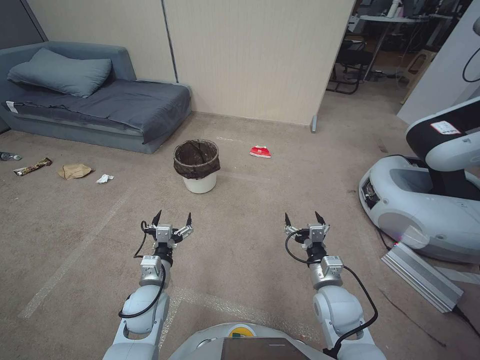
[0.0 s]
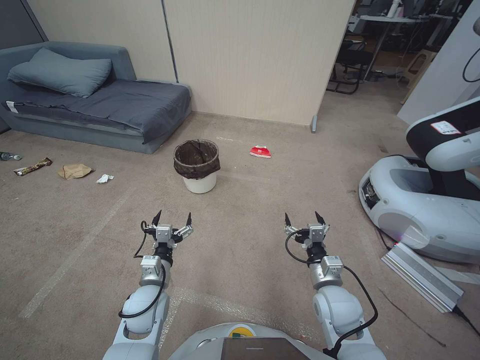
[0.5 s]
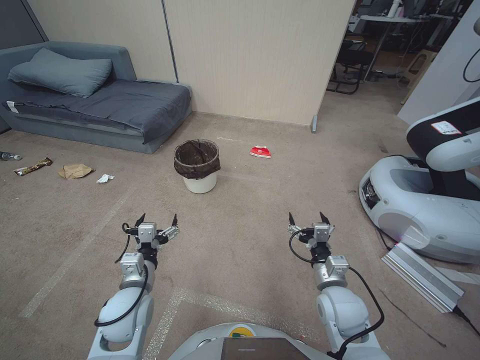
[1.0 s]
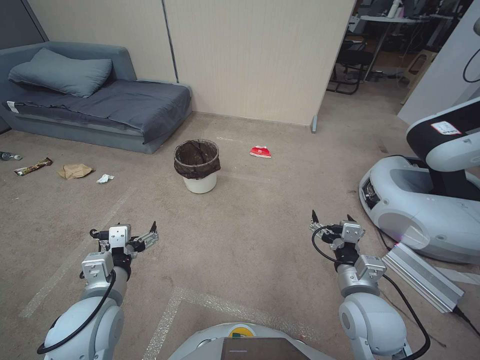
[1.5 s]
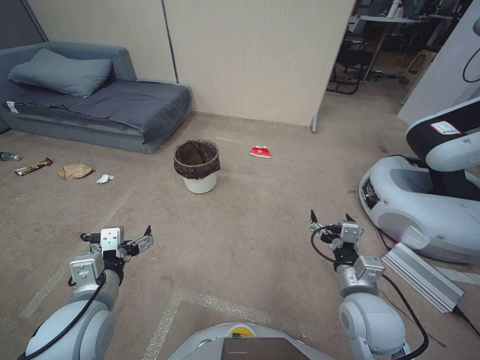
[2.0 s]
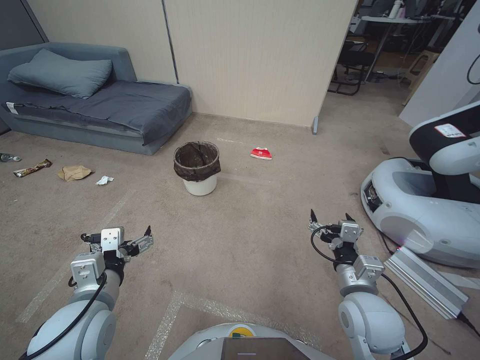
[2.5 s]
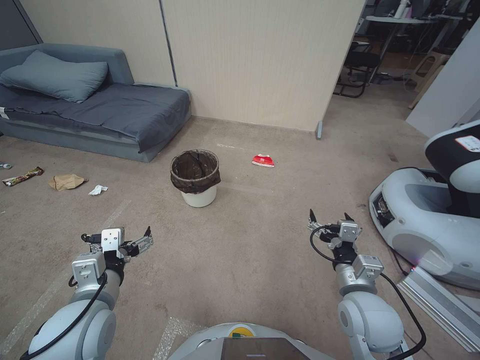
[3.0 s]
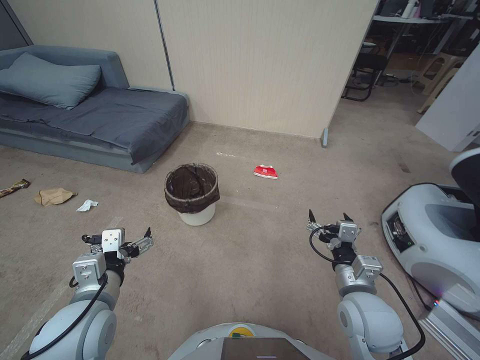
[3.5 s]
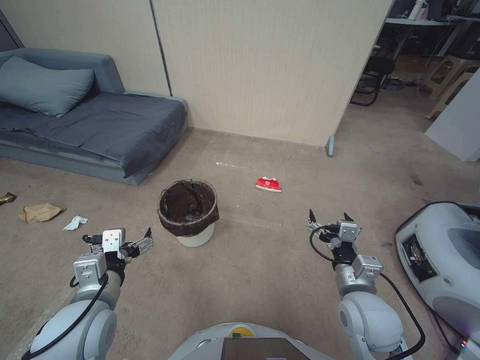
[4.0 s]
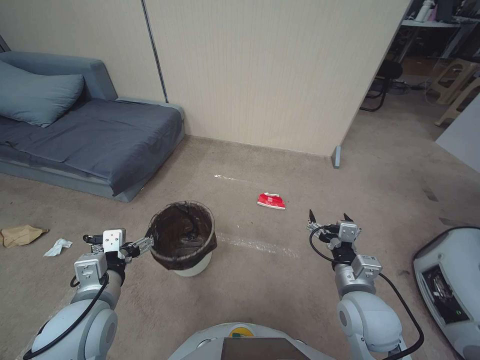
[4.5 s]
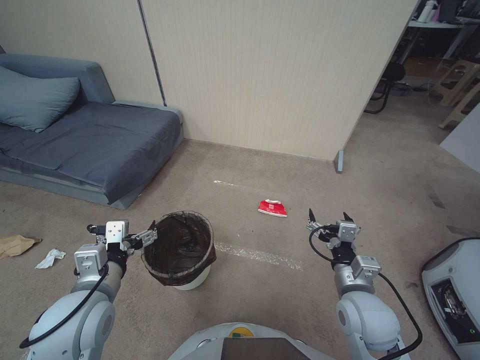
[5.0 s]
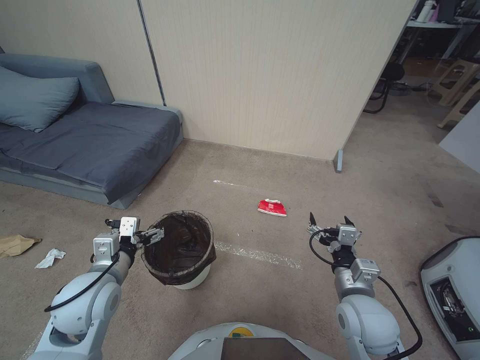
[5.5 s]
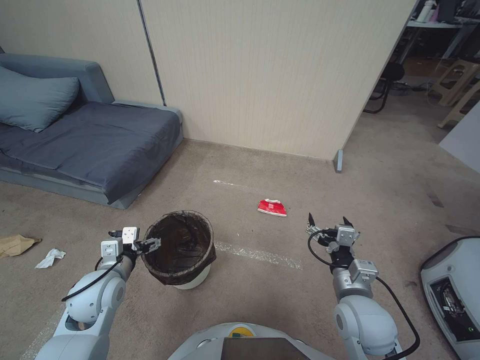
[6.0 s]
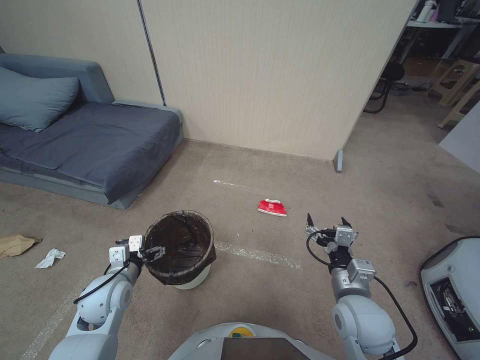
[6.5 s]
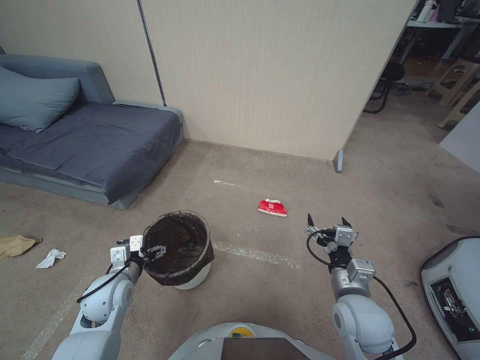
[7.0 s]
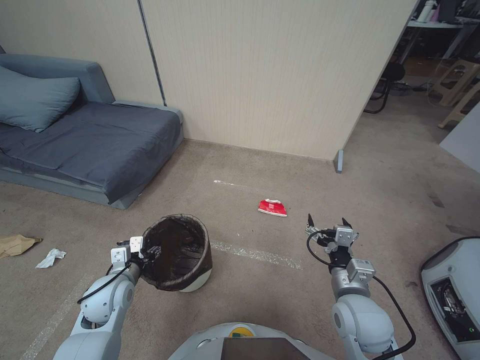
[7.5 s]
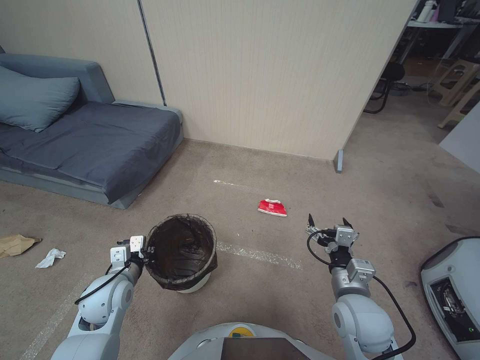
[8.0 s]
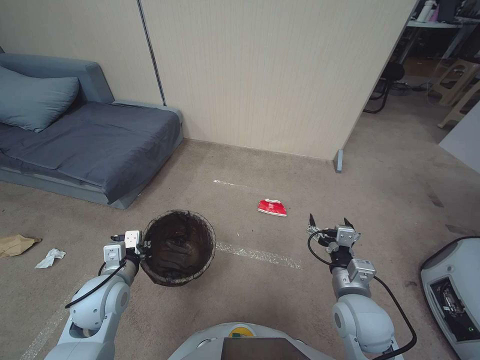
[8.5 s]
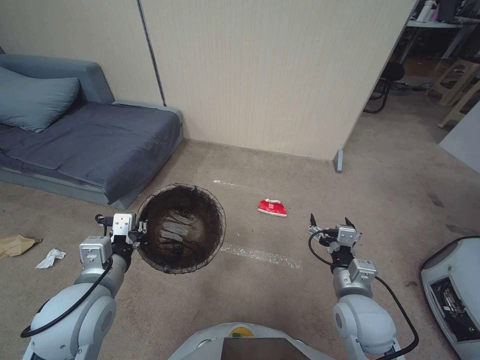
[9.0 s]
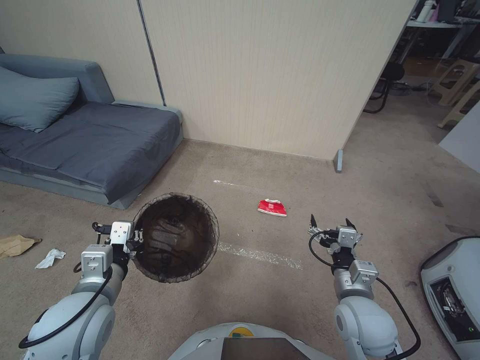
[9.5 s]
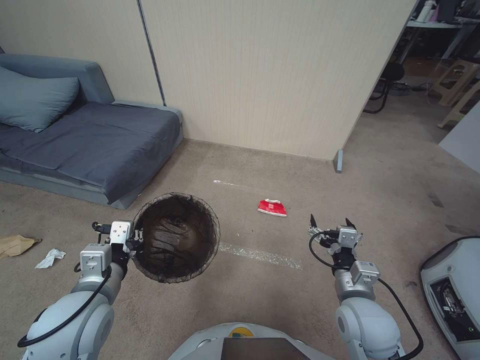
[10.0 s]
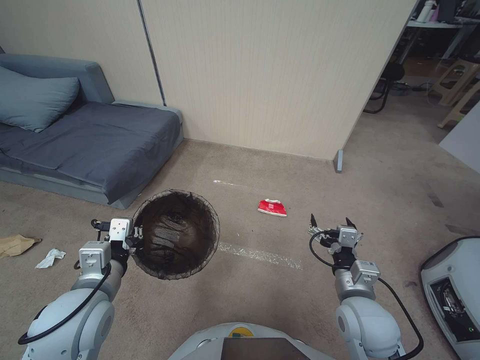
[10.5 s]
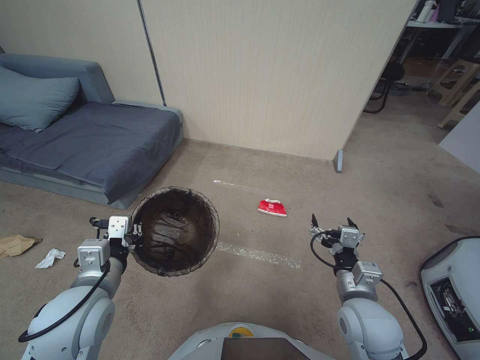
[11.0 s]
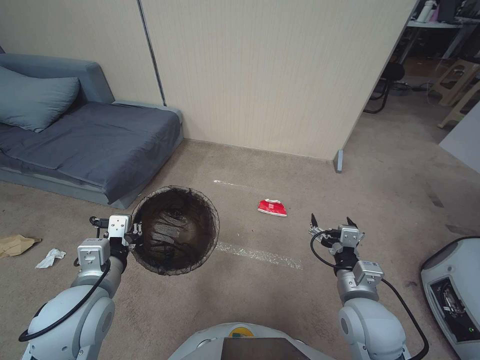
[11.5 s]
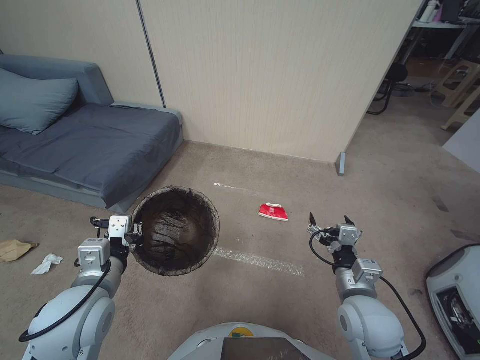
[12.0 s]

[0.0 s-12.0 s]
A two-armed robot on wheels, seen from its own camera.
Task of the whole recording: Pick up the trash bin, then pick up the garbage from the floor and place it into the trash bin.
4.0 to 6.0 s: The left gripper shifts some 10 cm forward and downward.
6.0 to 8.0 s: The left gripper closes its fingers.
8.0 to 10.0 s: The left gripper goes about 15 cm upward and backward.
10.0 to 12.0 s: The two grippers keep their place.

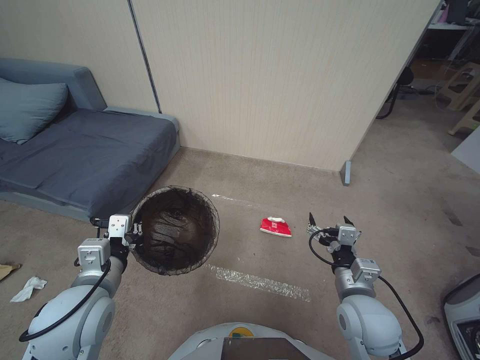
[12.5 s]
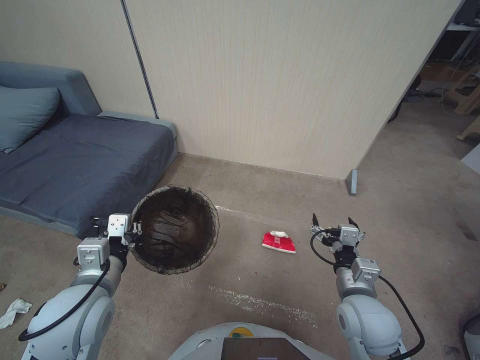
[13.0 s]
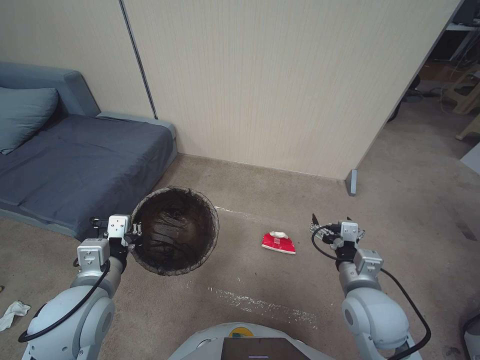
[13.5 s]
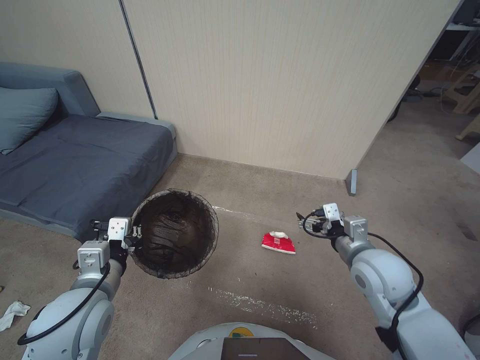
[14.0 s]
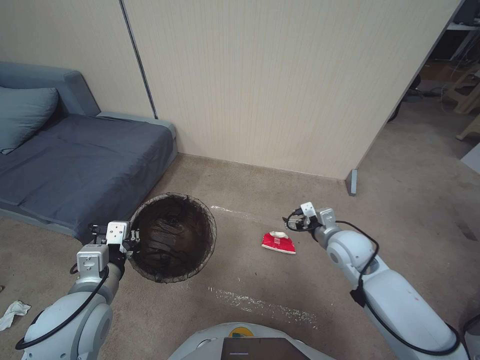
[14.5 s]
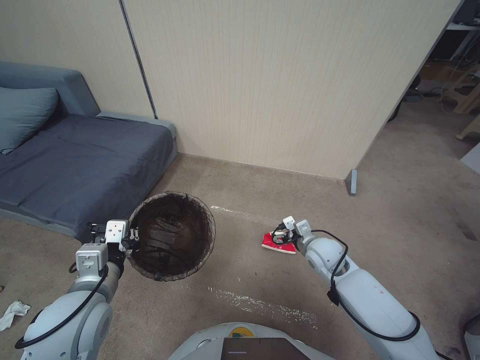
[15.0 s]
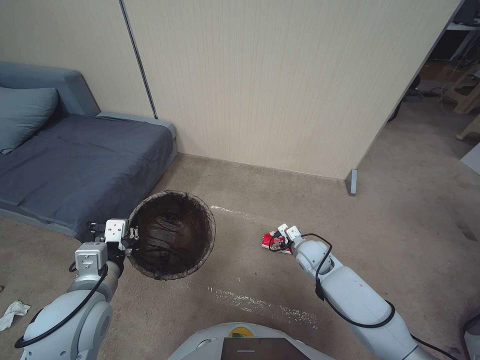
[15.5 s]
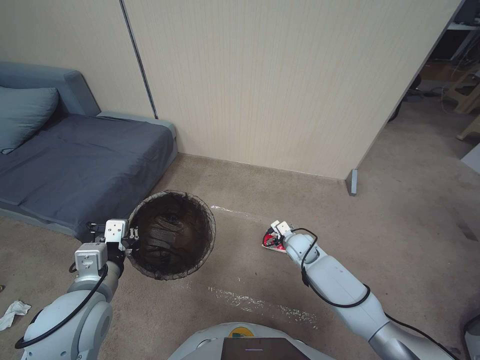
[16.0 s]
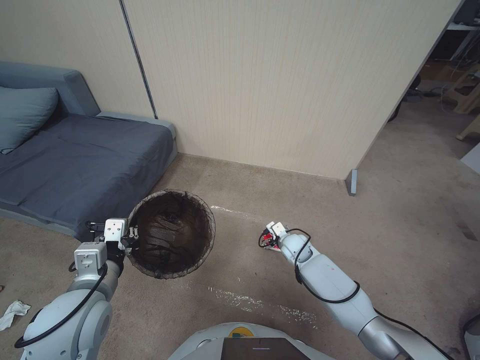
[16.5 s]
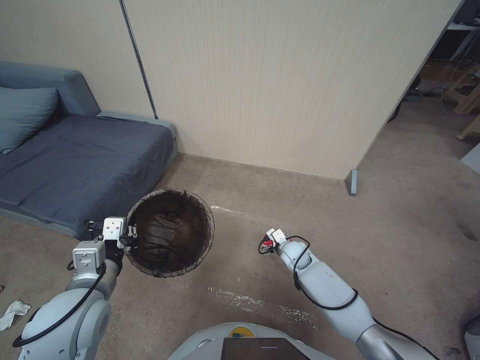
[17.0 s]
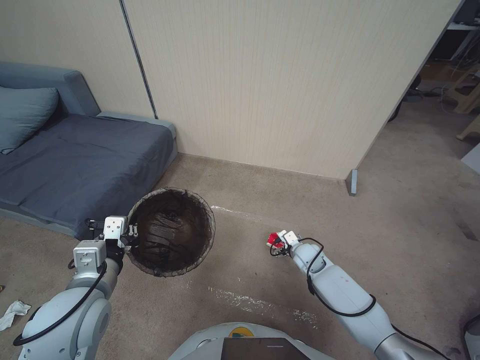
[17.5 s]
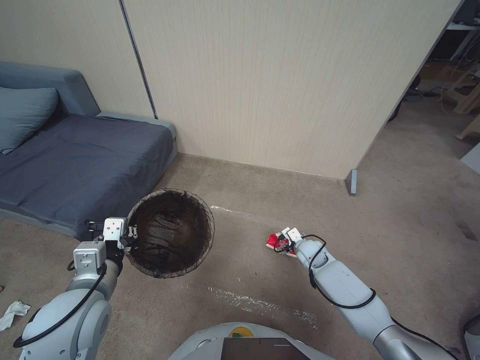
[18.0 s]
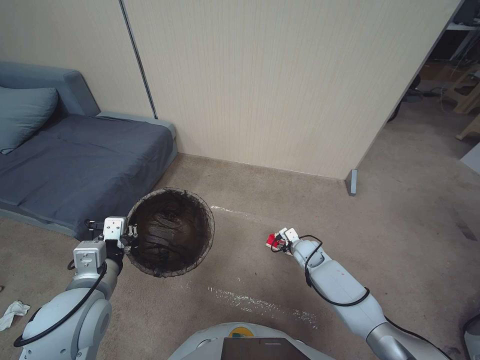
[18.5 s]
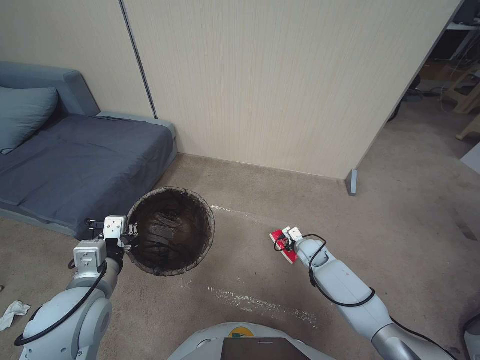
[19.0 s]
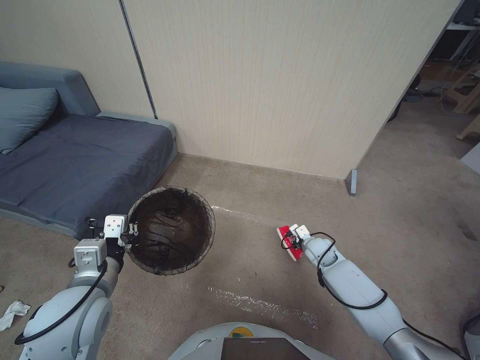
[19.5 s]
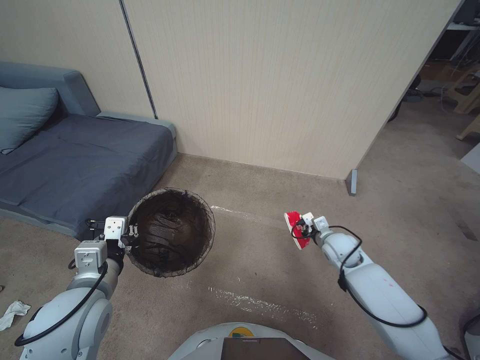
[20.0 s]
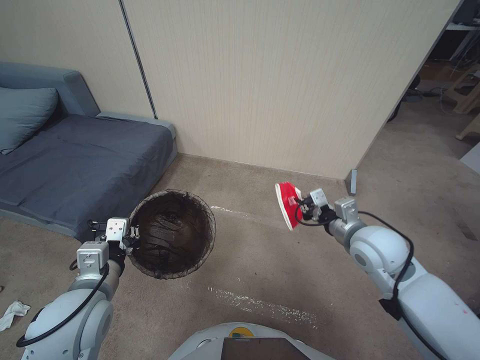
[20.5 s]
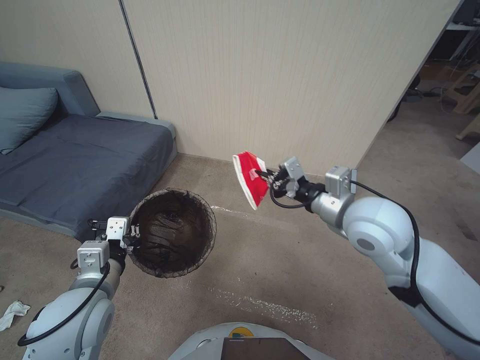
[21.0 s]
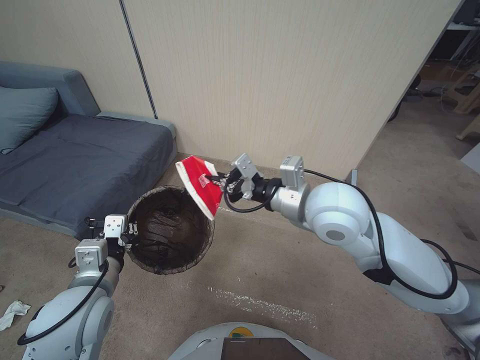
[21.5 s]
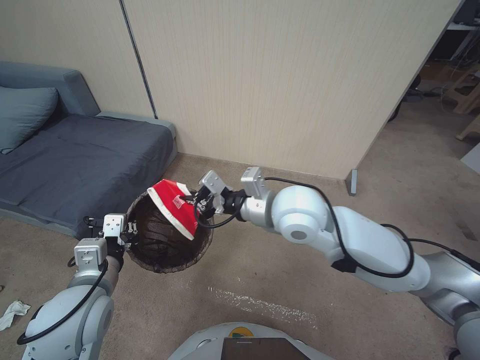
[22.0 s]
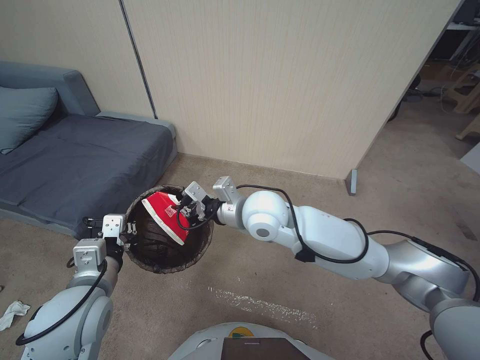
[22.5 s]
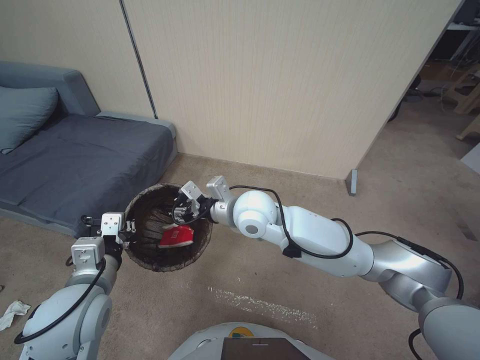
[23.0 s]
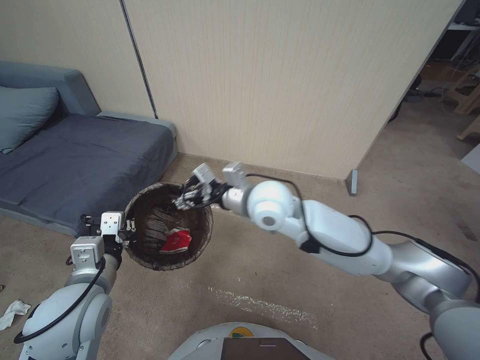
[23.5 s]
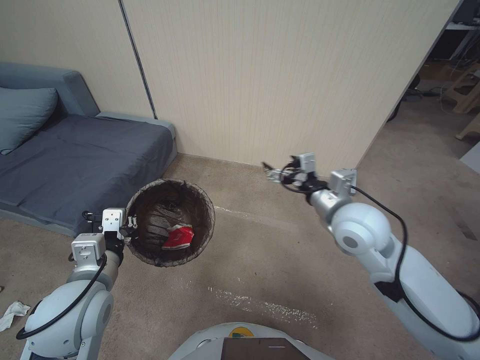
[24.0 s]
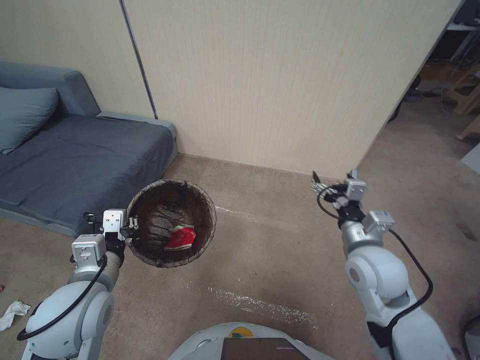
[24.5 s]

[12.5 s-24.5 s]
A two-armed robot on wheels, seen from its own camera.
Task of the whole recording: Pick up the trash bin, then pick up the garbage from the floor and place it into the trash bin.
12.5 to 14.5 s: The right gripper moves forward, roughly 10 cm.
14.5 to 16.5 s: The right gripper is displaced downward, forward and to the left by some 20 cm.
16.5 to 18.5 s: The right gripper goes about 5 cm to the right.
18.5 to 20.5 s: The right gripper moves upward, about 25 cm, and closes its fingers.
20.5 to 22.5 s: The right gripper travels to the left by roughly 25 cm.
22.5 to 24.5 s: The right gripper shifts roughly 20 cm to the right, and opens.

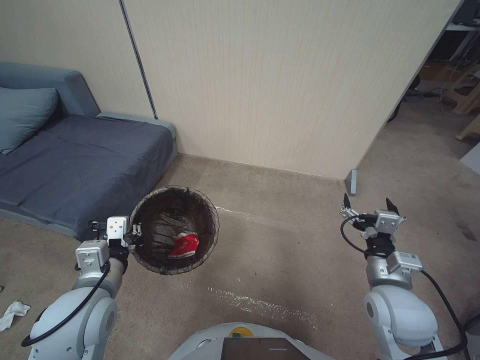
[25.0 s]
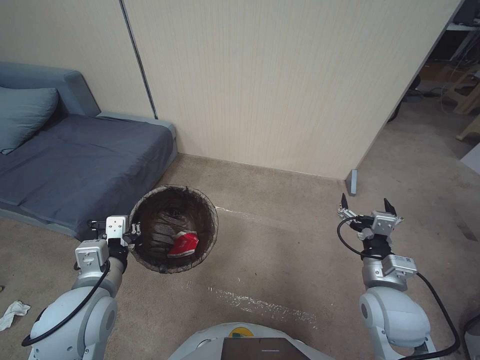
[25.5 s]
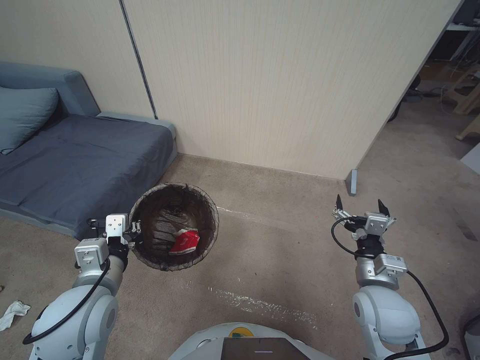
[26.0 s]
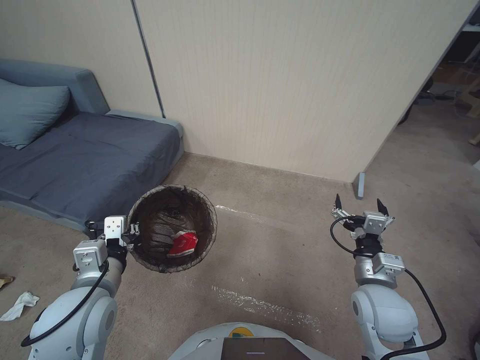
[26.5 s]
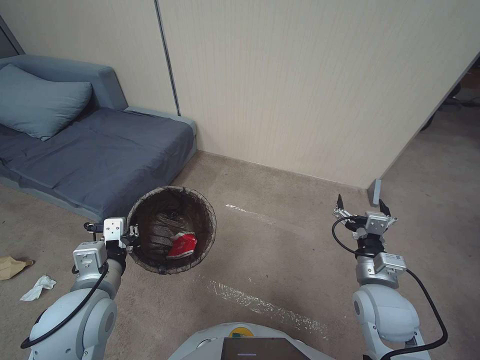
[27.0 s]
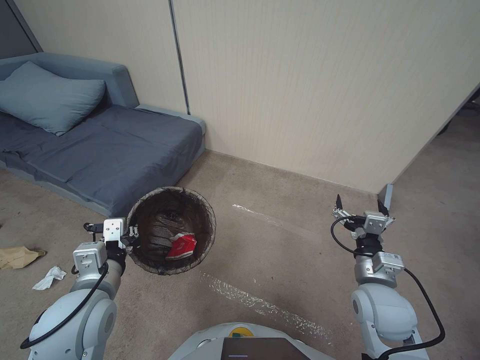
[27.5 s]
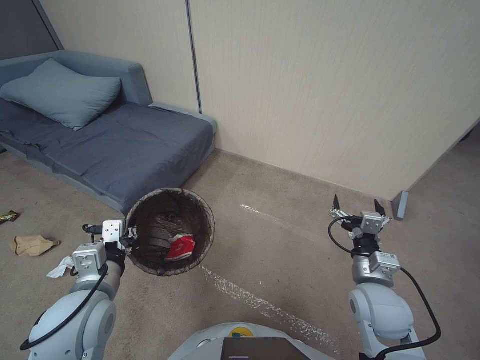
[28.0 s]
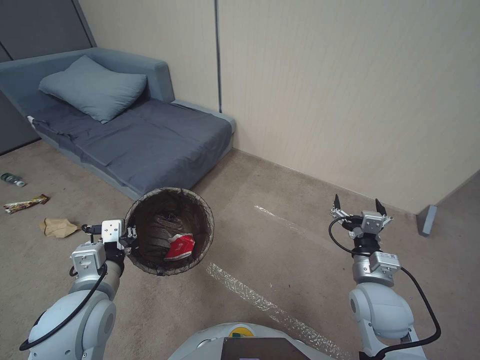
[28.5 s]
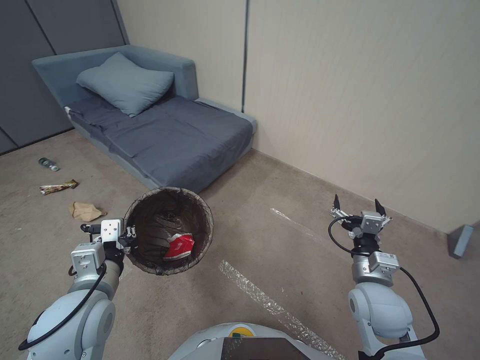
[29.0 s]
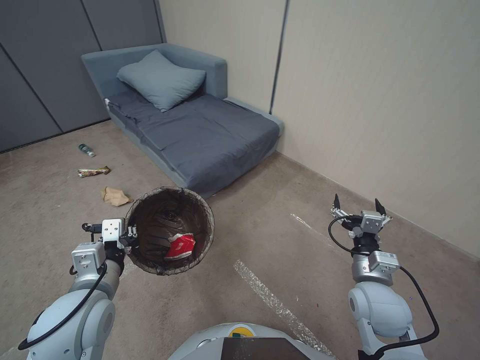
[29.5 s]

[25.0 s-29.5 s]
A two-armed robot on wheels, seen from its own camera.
Task of the whole recording: Pick up the trash bin, then pick up the garbage from the floor and place it into the trash bin.
25.0 to 27.0 s: There are only small adjustments of the grippers.
